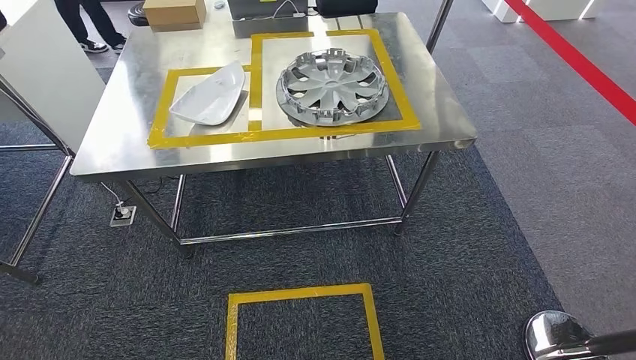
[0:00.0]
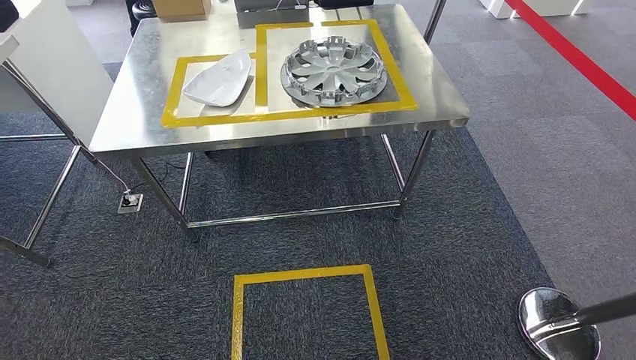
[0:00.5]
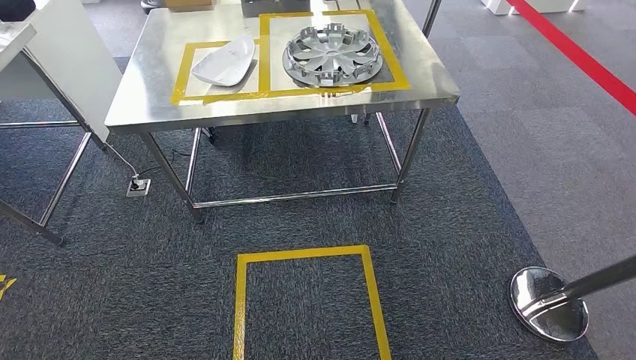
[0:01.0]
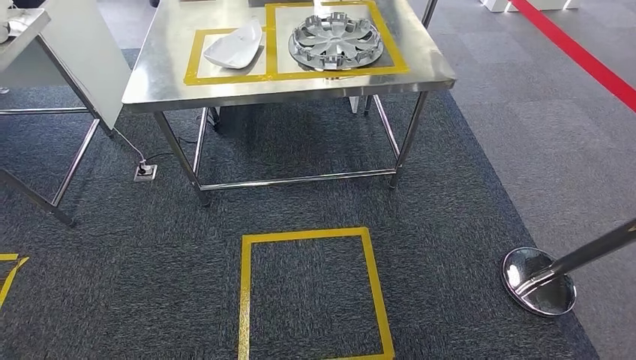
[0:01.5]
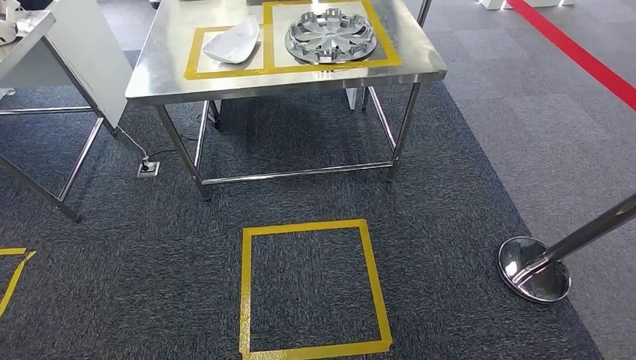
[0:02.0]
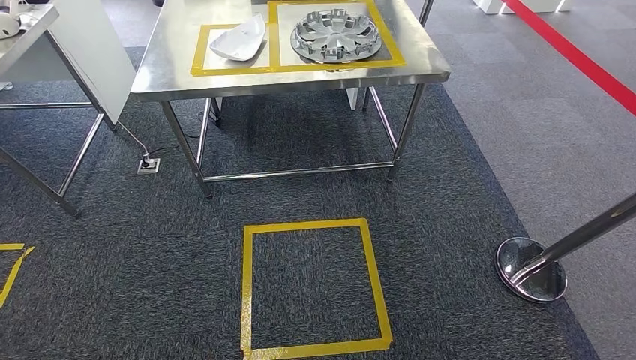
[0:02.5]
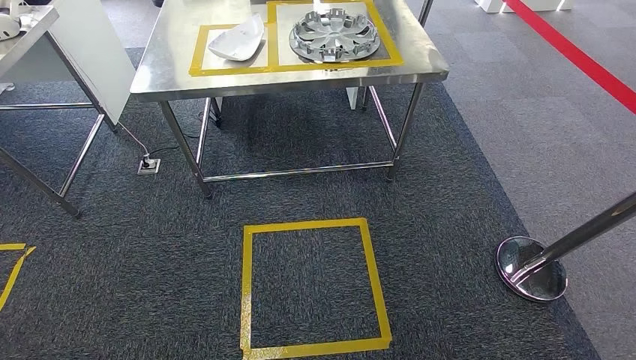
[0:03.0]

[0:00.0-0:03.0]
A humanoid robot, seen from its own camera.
Step, 0:00.0 to 0:03.0: Return to the initial position at the workbench.
0:01.5 to 0:03.0: The hands move only a little.
